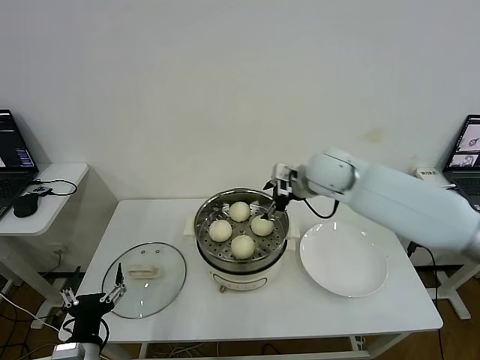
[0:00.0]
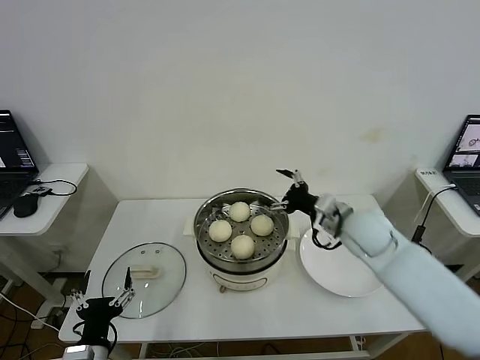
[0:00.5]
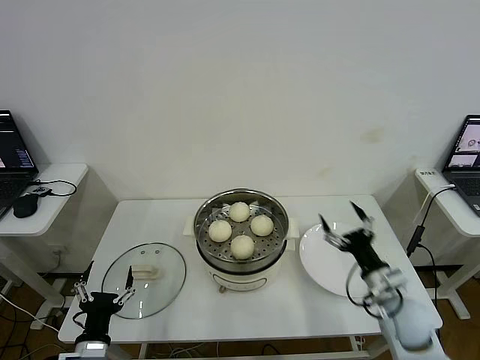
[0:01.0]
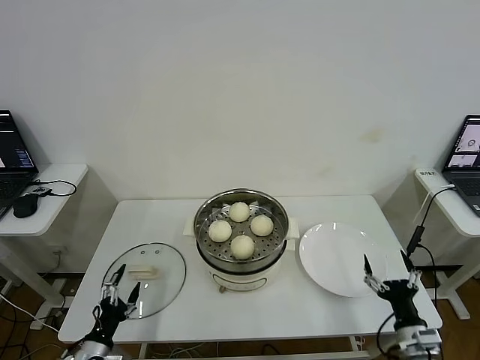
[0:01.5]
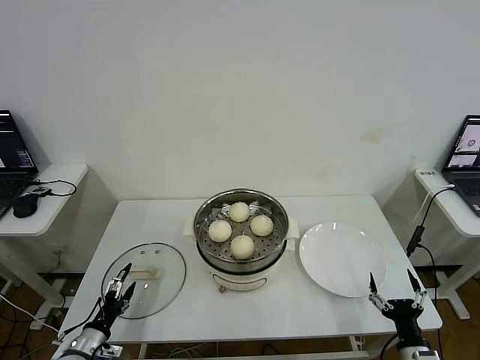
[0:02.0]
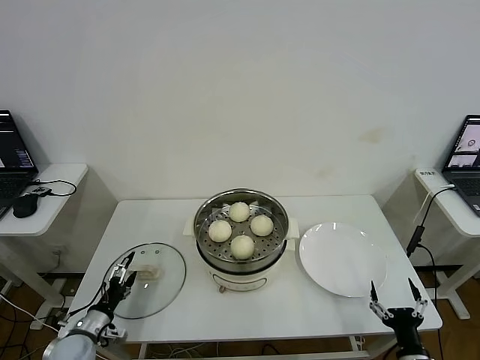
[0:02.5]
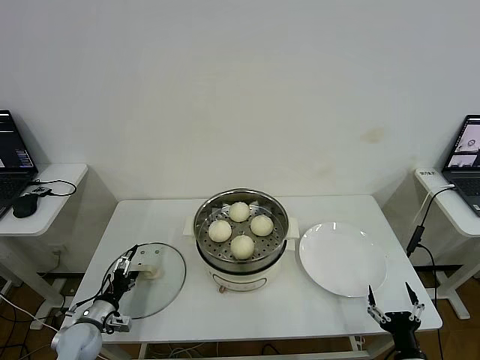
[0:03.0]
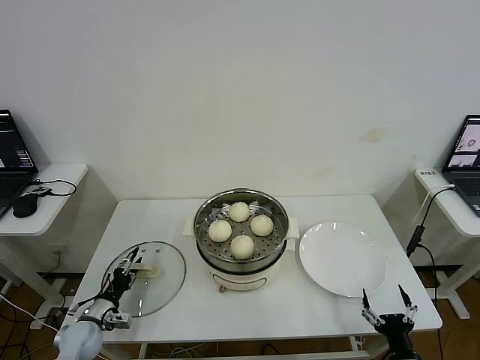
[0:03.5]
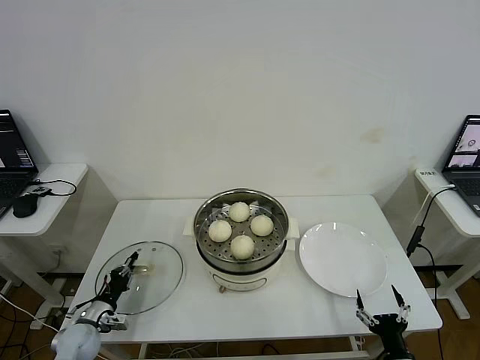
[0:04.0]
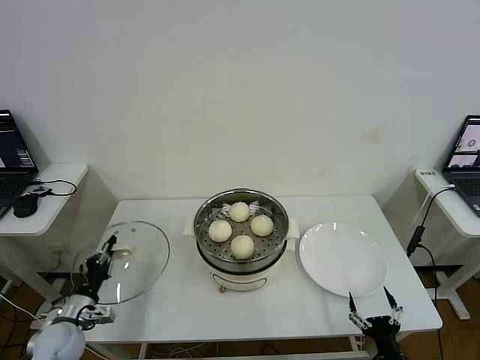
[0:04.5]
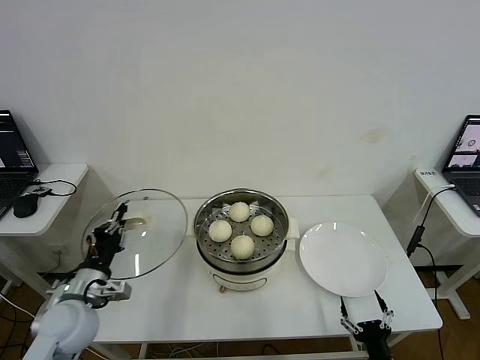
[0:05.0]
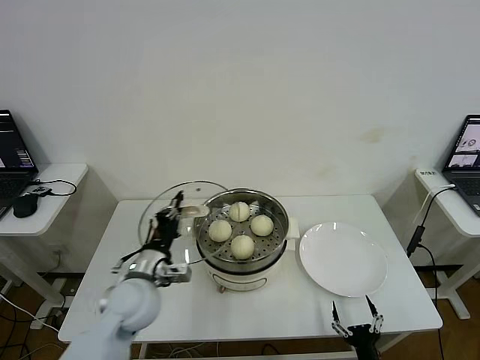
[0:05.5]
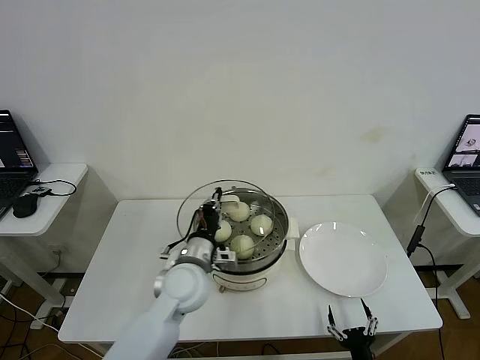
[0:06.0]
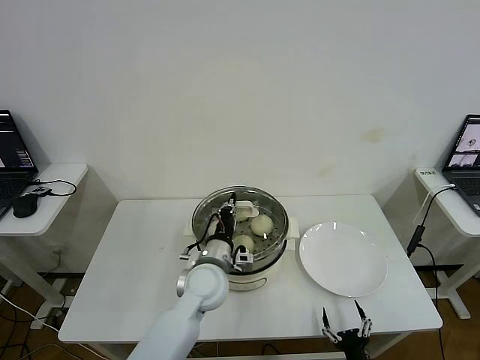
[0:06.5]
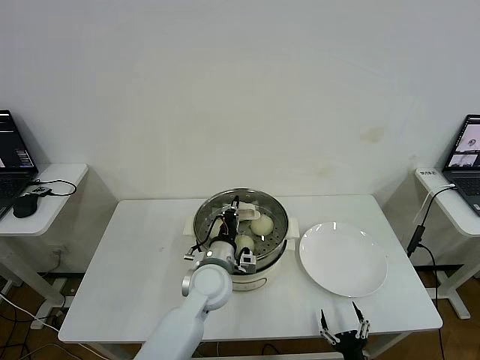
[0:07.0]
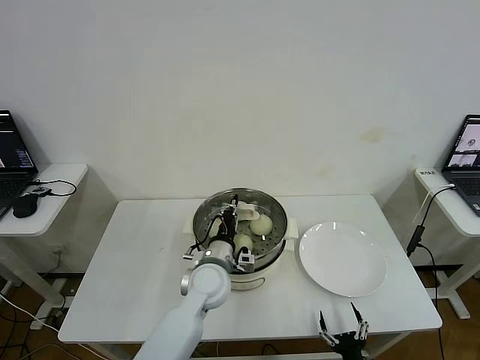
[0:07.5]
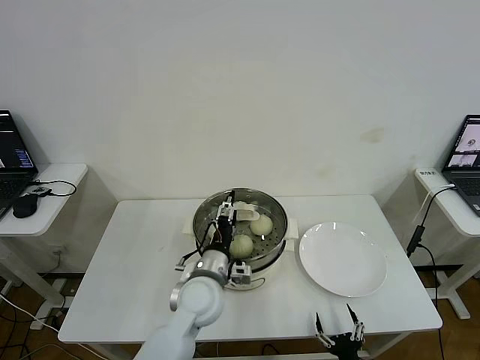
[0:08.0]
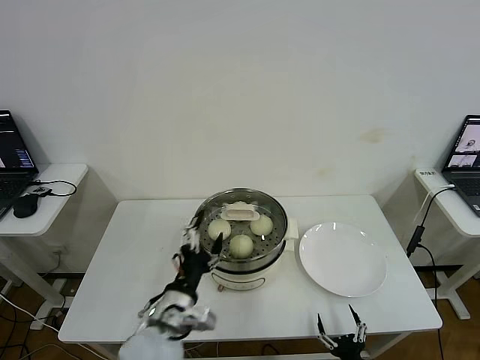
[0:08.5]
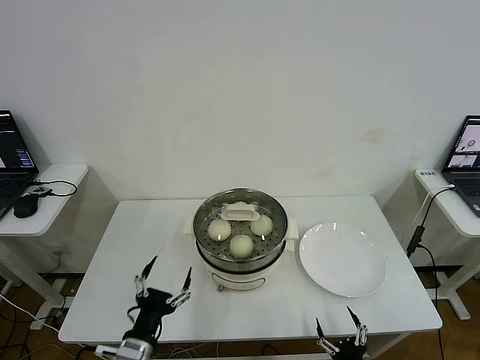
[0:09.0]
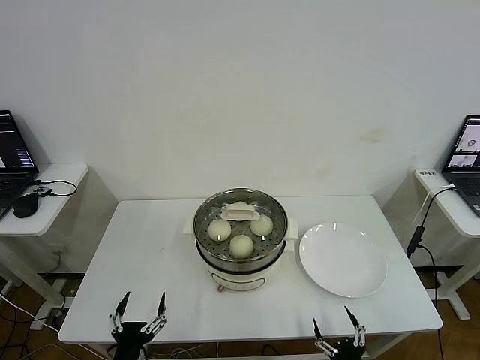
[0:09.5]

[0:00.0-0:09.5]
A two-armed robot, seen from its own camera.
Step, 0:00.0 to 0:04.0: Grasp the pot lid with left gripper.
Step, 0:04.5 to 0:07.5: Place the pot lid on the steamer with left gripper.
0:00.0 to 0:02.0: The left gripper goes approximately 15 cm downward, to the left and forward; the right gripper shifts about 50 cm backward, downward and to the right.
0:02.0 to 0:04.0: The left gripper travels forward by approximately 10 cm, and closes.
0:04.0 to 0:05.5: The right gripper shifts roughly 5 cm to the left, while the left gripper shifts about 30 cm upward and to the right.
0:05.5 to 0:07.5: The left gripper is displaced to the right and forward by roughly 15 cm.
0:07.5 to 0:09.5: The left gripper travels backward and to the left by roughly 30 cm, and opens up.

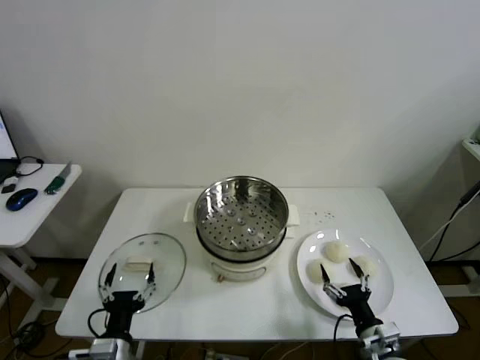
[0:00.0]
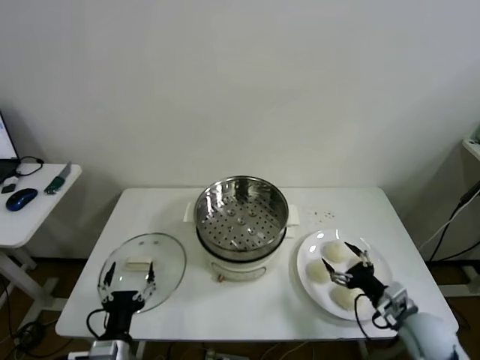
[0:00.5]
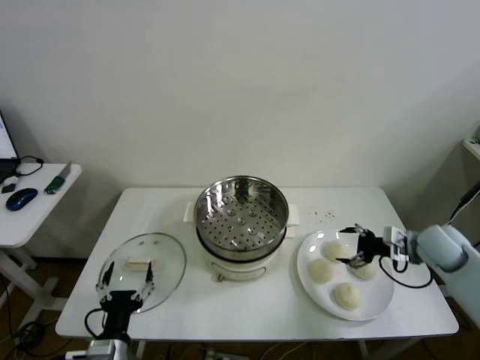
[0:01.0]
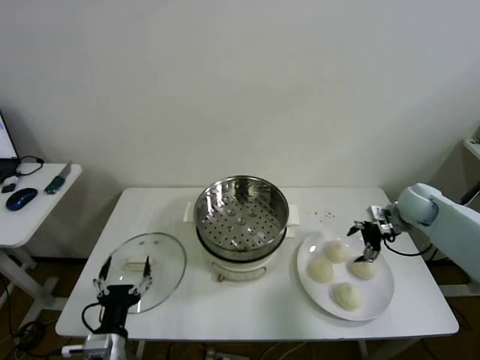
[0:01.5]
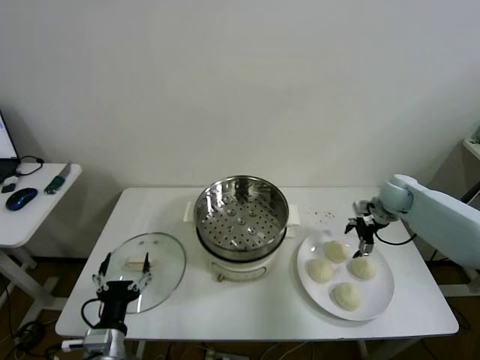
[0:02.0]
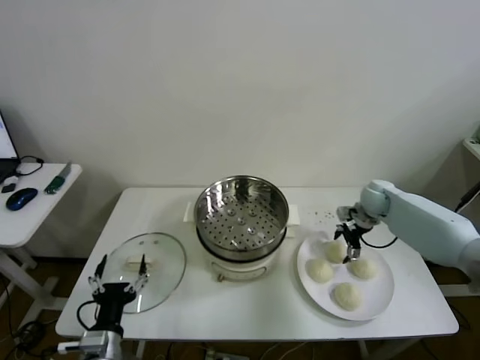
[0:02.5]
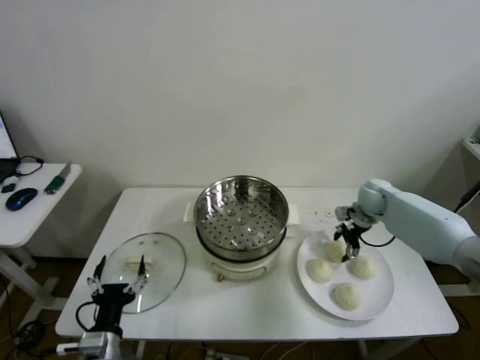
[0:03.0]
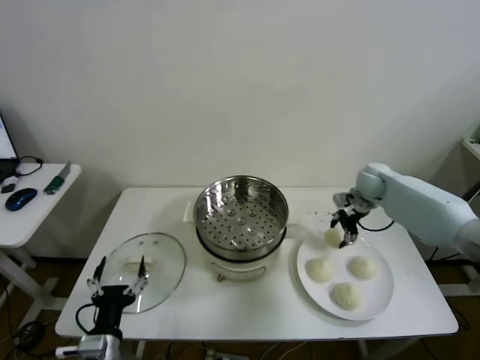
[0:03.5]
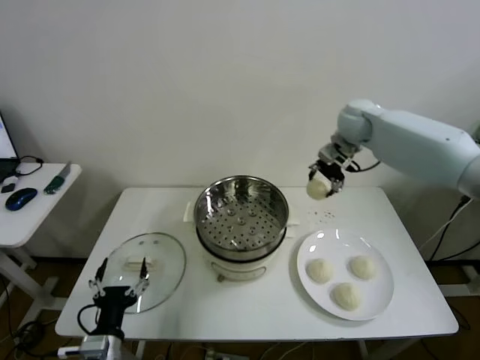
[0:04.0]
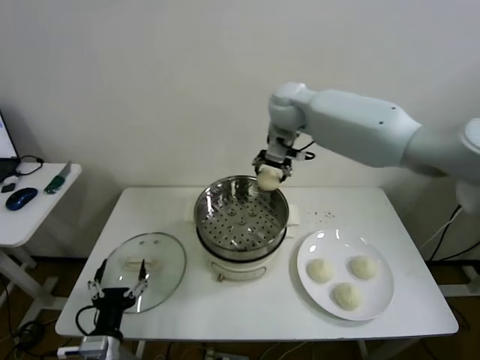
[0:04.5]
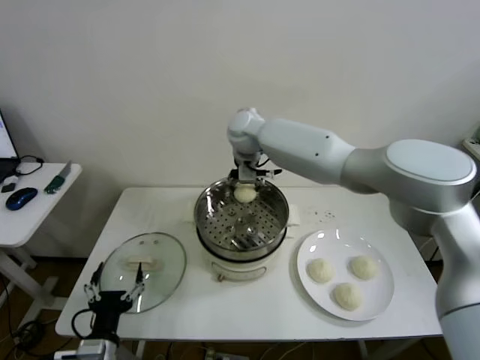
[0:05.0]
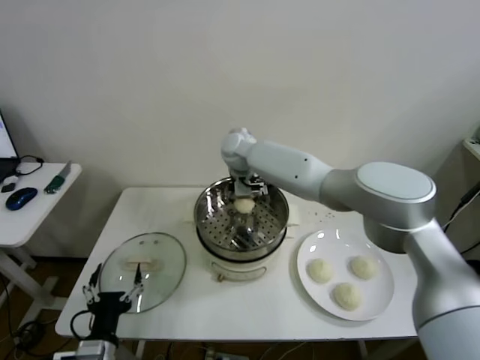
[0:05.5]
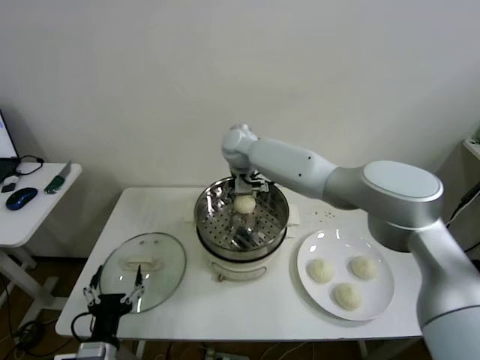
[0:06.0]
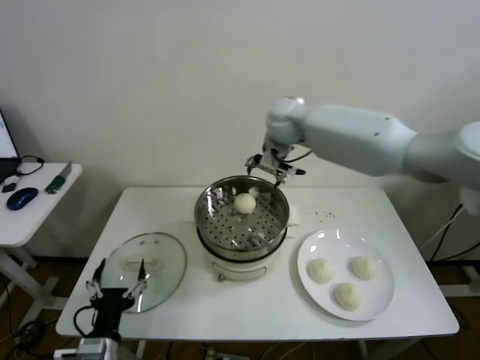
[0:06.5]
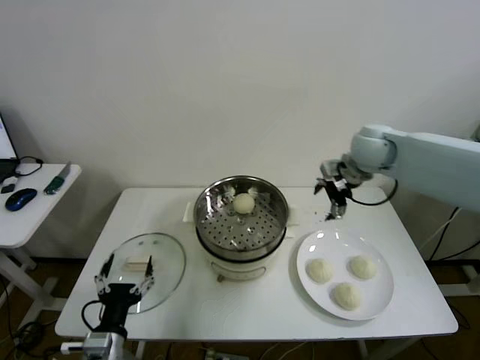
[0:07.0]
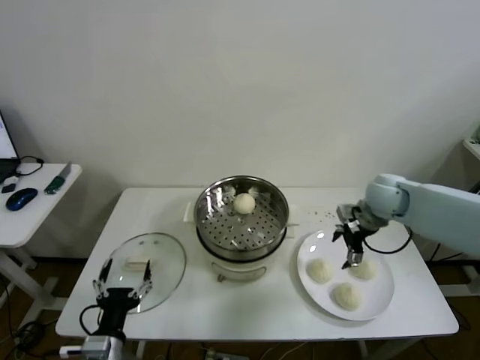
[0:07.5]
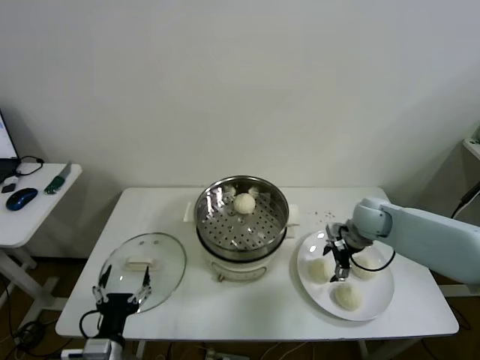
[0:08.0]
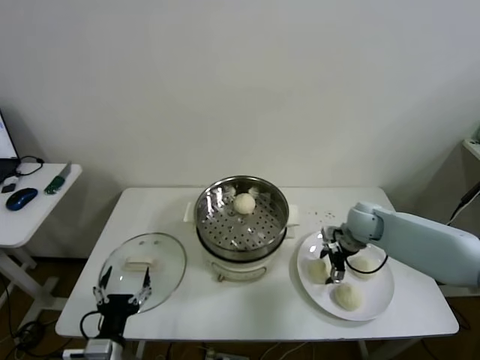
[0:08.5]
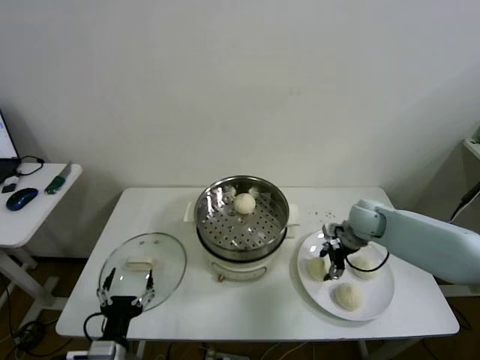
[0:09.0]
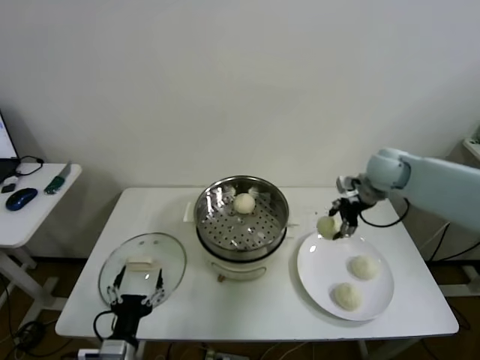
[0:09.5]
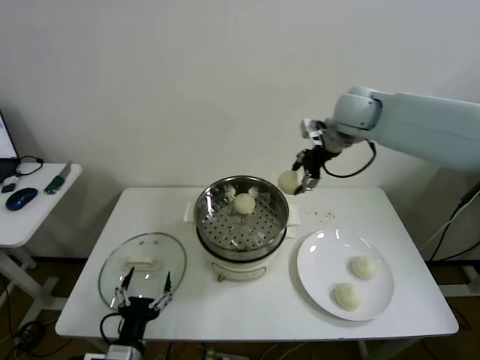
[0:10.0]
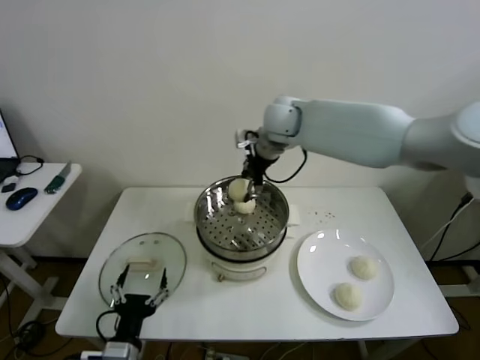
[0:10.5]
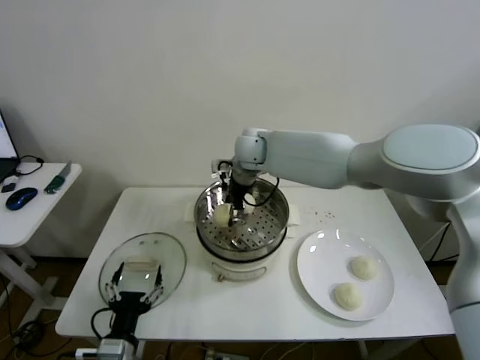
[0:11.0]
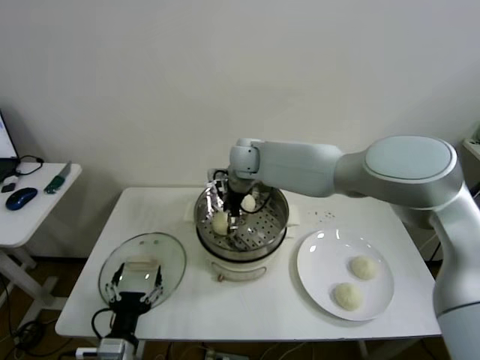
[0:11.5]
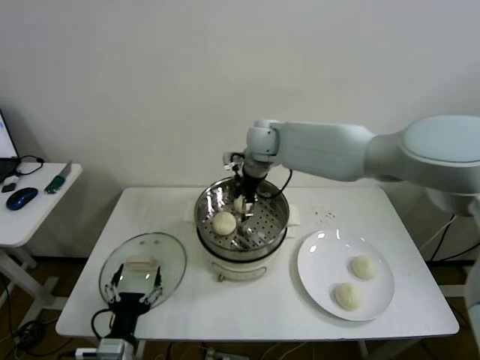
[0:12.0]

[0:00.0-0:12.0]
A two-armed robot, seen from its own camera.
Step, 0:00.0 to 0:02.5: Grasp the baozi in the plate with right gripper.
Step, 0:03.5 to 0:05.5: Place the baozi on the steamer with right gripper.
Step, 0:06.0 to 0:08.5: Grasp the baozi in the plate with right gripper.
Step, 0:09.0 to 0:11.0: Place the baozi on the steamer with right gripper.
0:02.0 to 0:04.0: The right gripper moves upward and to the left, some 25 cm, and closes up.
0:04.0 to 0:06.0: The right gripper is displaced to the left by roughly 25 cm, and opens its fingers.
0:06.0 to 0:08.0: The right gripper moves to the right and downward, approximately 35 cm.
0:08.0 to 0:10.0: The right gripper is displaced upward by roughly 25 cm, and closes up.
0:10.0 to 0:12.0: The right gripper is displaced to the left and downward by roughly 20 cm, and opens.

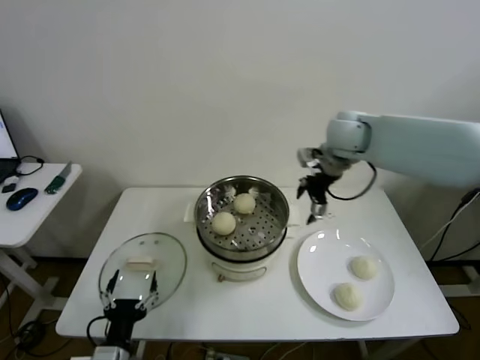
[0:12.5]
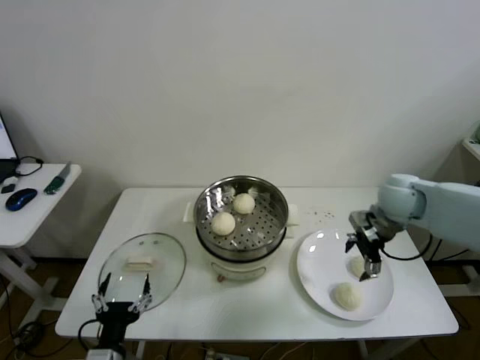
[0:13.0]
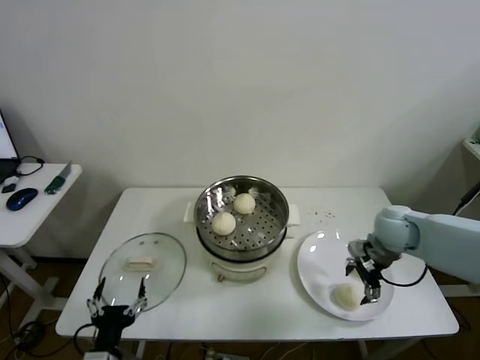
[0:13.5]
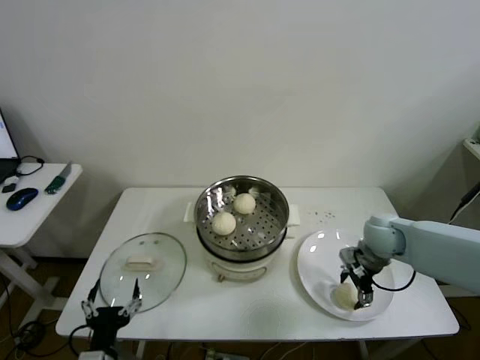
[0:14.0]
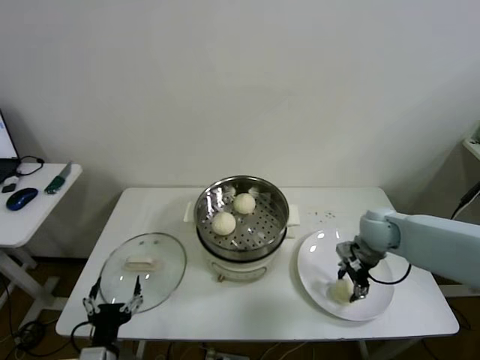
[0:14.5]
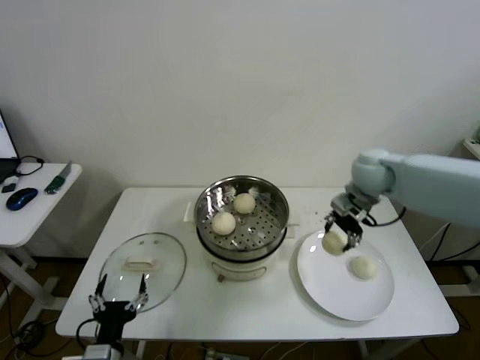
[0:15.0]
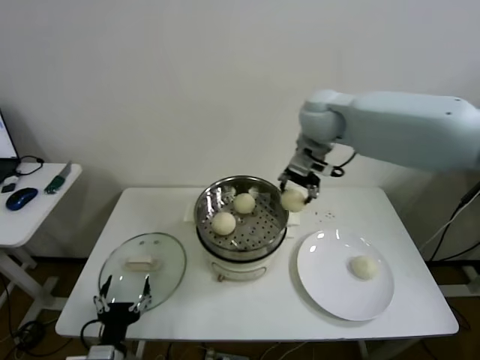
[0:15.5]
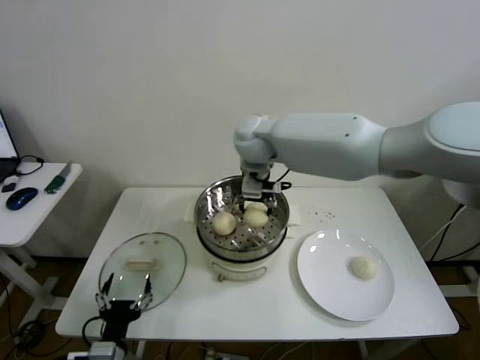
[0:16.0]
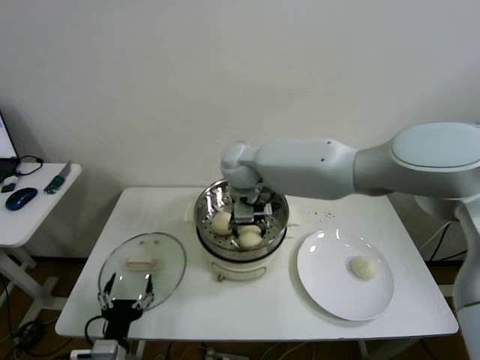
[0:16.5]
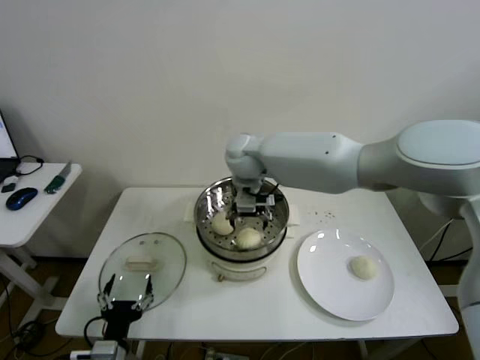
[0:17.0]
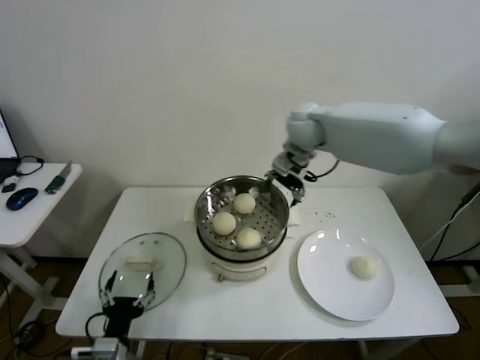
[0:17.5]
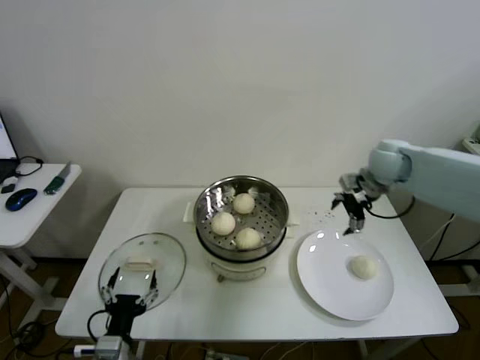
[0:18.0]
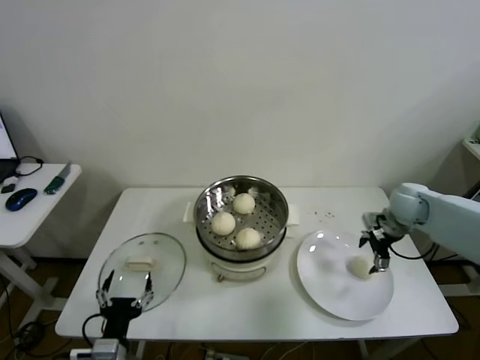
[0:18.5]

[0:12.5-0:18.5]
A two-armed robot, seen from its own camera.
Step, 0:12.5 to 0:14.0: Grasp the baozi in the plate with right gripper.
Step, 0:14.5 to 0:16.5: Place the baozi on the steamer with right gripper.
0:12.5 to 0:14.5: The right gripper travels downward, to the right and backward by about 25 cm, and closes up.
0:14.5 to 0:16.5: The right gripper is displaced to the left and upward by about 35 cm.
0:16.5 to 0:18.5: The right gripper shifts approximately 40 cm to the right, and opens its fingers.
